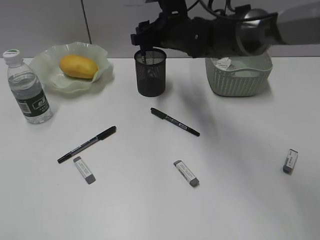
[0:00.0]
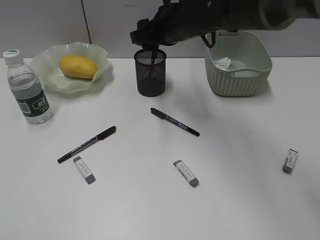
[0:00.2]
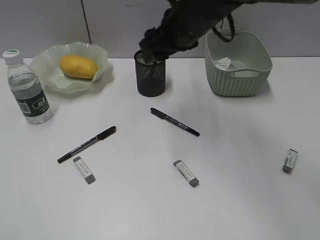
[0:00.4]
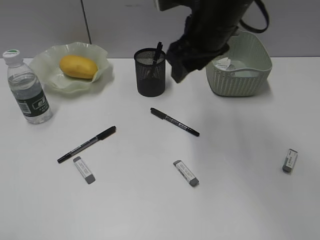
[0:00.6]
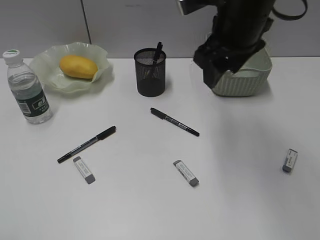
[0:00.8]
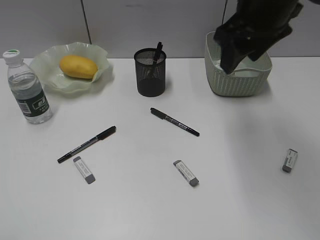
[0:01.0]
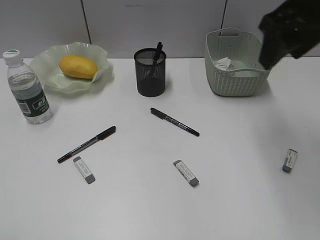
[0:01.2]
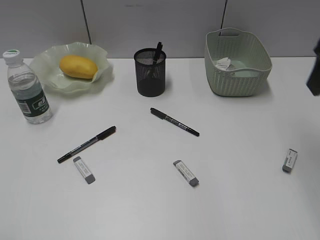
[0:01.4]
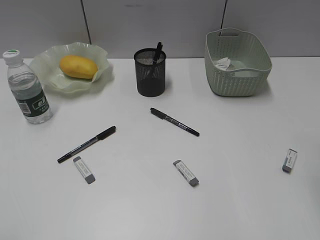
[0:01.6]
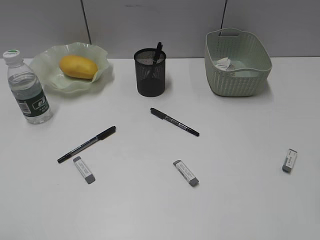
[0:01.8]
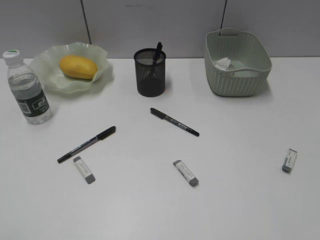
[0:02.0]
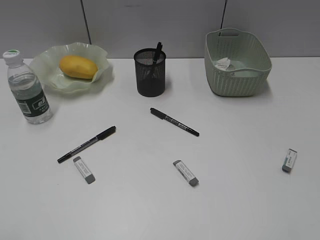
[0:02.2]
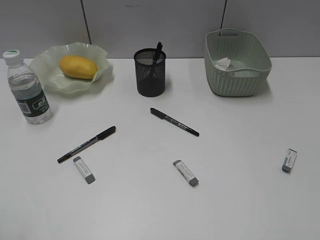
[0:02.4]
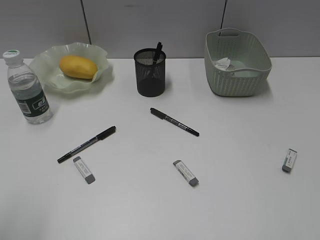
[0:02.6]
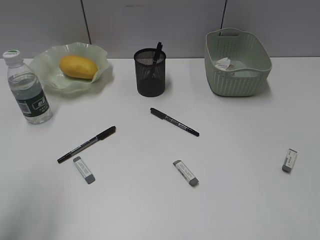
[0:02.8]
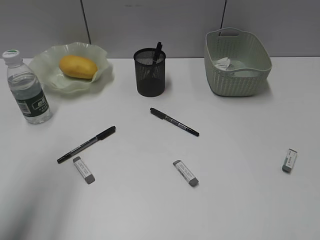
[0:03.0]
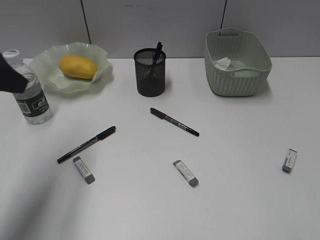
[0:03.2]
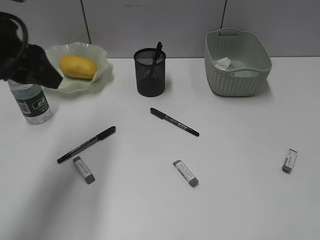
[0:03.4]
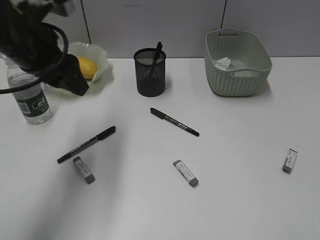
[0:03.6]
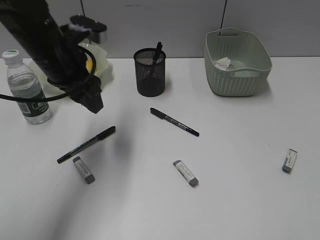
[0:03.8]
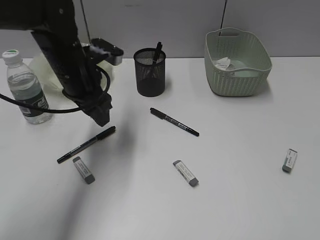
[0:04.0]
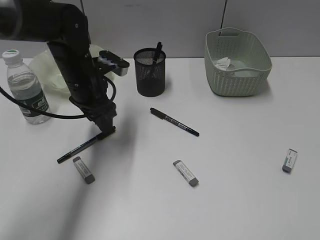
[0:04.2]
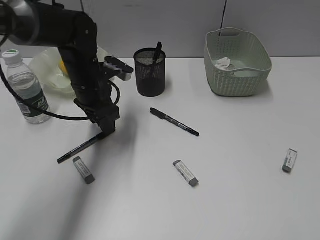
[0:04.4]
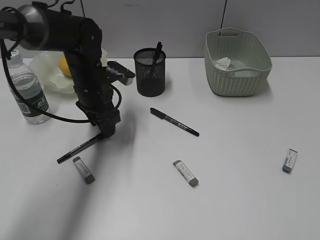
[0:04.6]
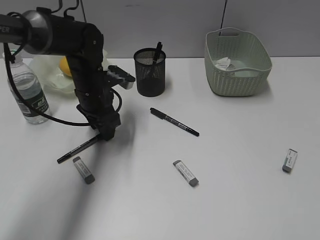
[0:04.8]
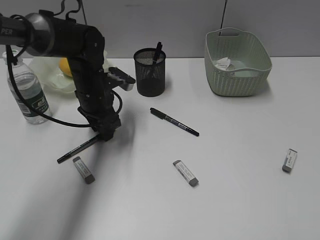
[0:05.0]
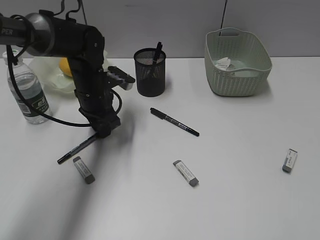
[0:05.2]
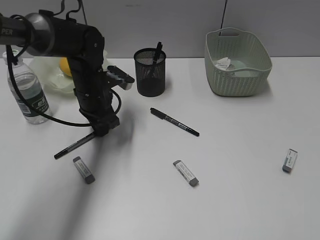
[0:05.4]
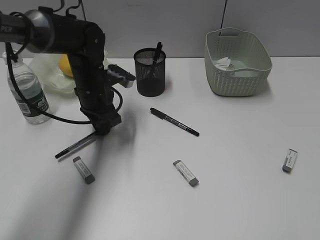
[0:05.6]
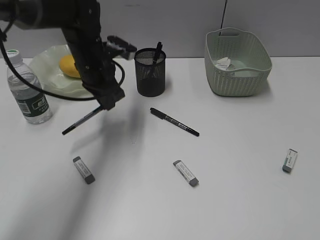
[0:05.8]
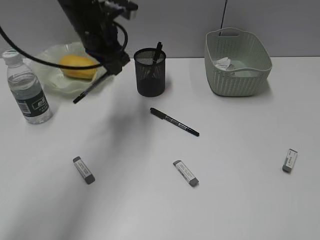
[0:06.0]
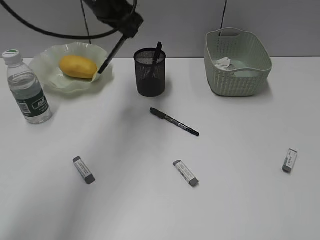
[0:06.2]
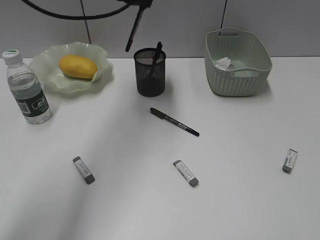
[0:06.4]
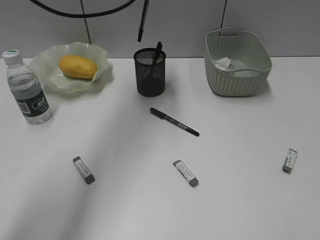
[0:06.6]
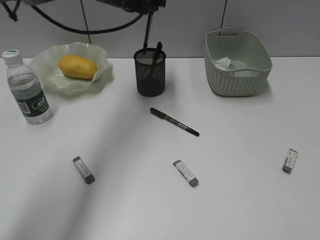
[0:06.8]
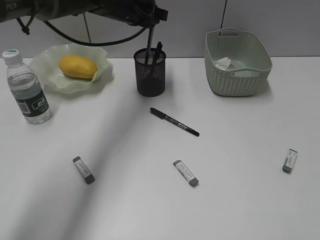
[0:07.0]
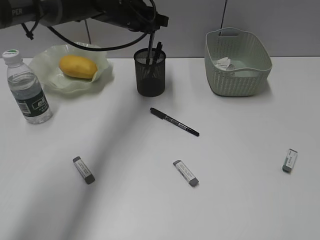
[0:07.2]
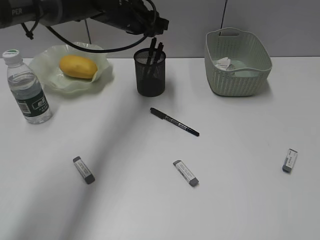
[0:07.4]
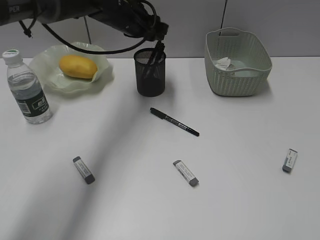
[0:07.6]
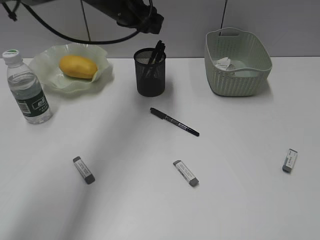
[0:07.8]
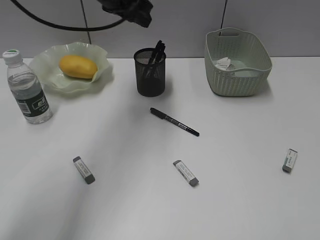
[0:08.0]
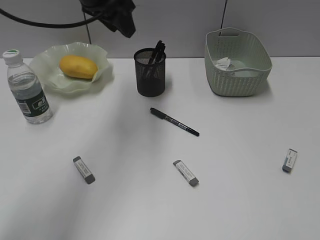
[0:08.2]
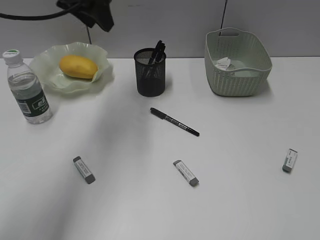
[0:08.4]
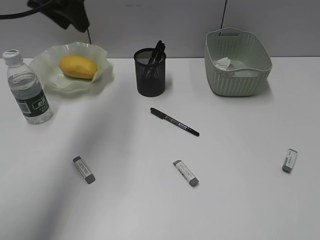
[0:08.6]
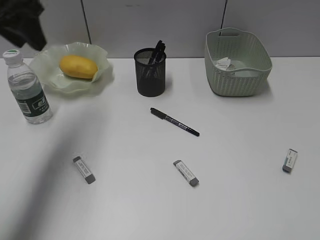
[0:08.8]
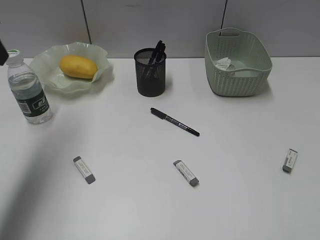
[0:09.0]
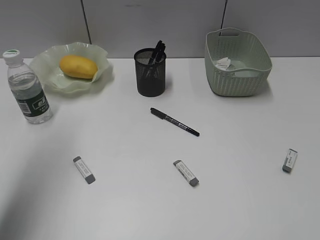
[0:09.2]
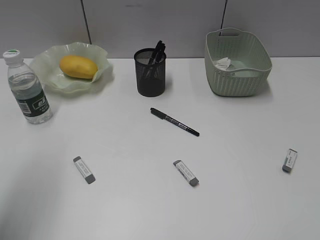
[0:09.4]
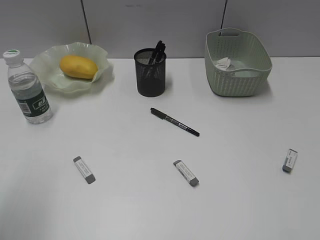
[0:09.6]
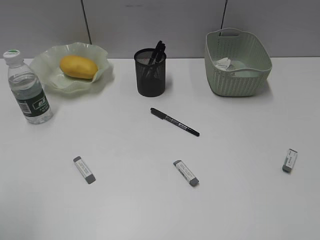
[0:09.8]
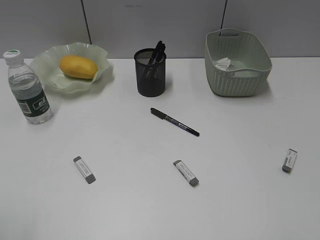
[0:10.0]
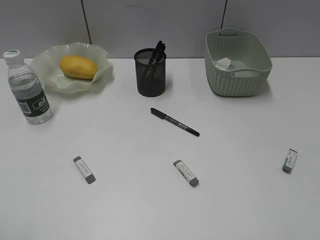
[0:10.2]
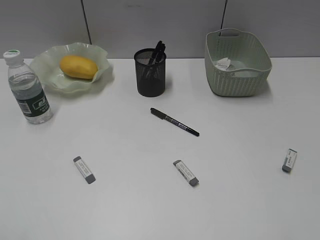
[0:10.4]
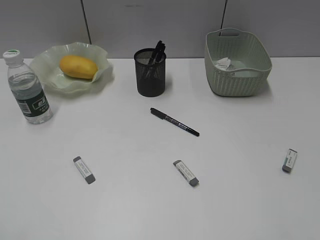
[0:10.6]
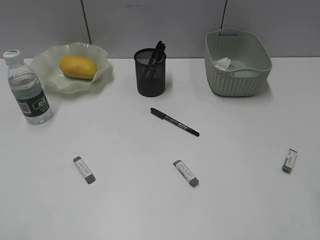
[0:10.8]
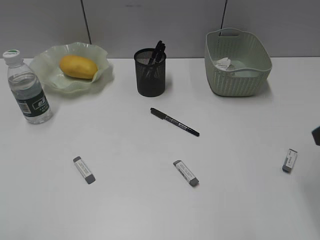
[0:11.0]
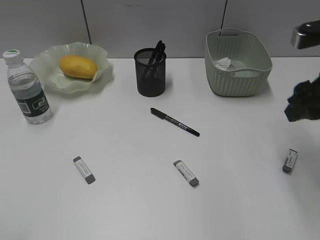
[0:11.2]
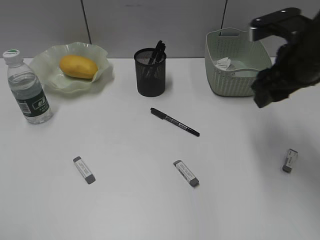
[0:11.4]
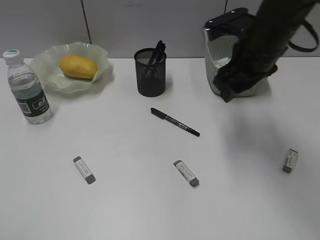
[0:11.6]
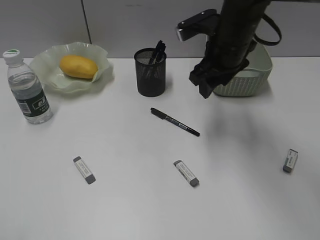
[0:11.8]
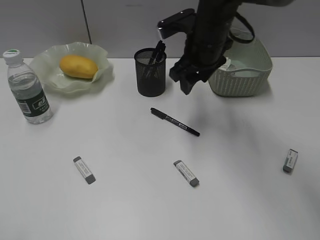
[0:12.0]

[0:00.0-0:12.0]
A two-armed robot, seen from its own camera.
Step, 0:00.4 to 0:05.4: Grasp the black pen with left gripper.
Step, 0:05.6 to 0:07.8: Place the black pen in pen holder with left gripper.
0:00.0 to 0:01.6: The right gripper is displaced backward, to the right and upward by about 35 cm.
0:01.6 to 0:03.0: The left gripper travels forward by approximately 20 cm.
0:03.0 to 0:04.4: The left gripper travels forward, downward and to the right by roughly 30 cm.
0:04.4 to 0:06.0: The left gripper moves upward, approximately 10 cm, and closes its fingers.
0:06.0 to 0:07.6: The left gripper shifts some 5 cm forward, goes upward and returns, some 10 cm each way, and opens.
0:07.6 to 0:09.0: The left gripper goes some 30 cm to the left, backward and upward.
0:09.0 to 0:10.4: The left gripper moves backward, some 30 cm.
0:10.4 to 0:12.0: The right gripper moves forward and to the left, roughly 40 cm.

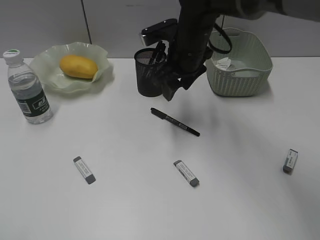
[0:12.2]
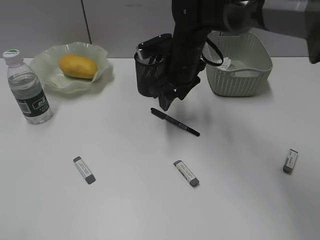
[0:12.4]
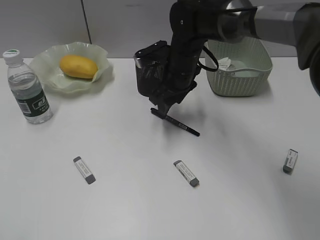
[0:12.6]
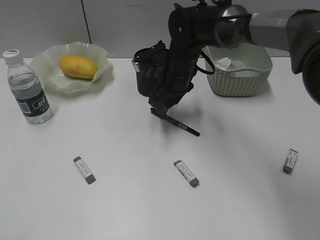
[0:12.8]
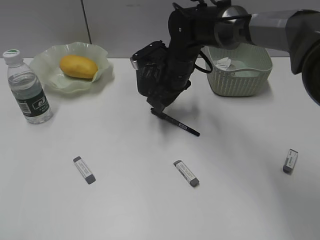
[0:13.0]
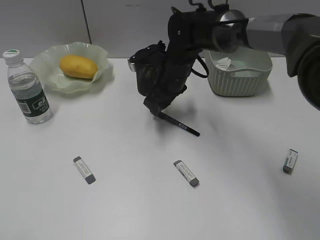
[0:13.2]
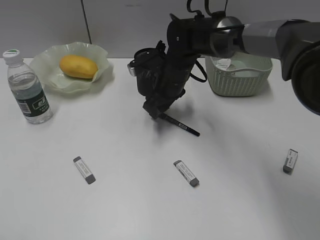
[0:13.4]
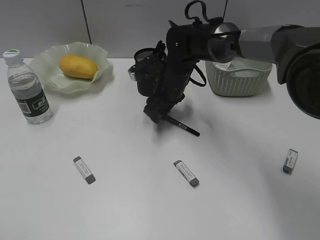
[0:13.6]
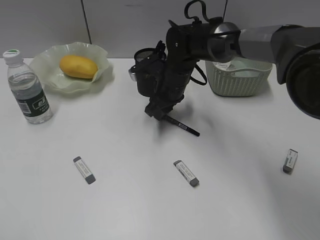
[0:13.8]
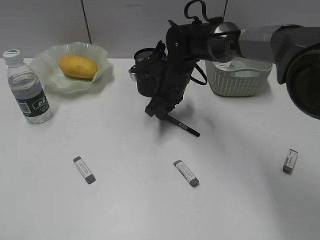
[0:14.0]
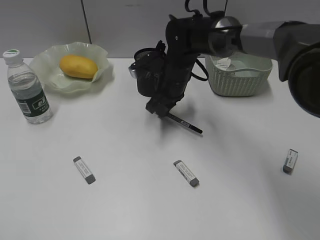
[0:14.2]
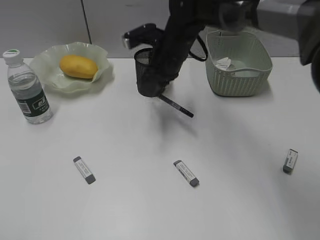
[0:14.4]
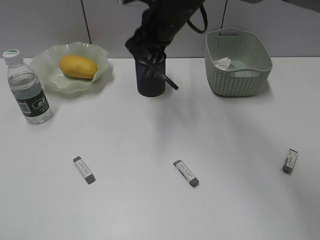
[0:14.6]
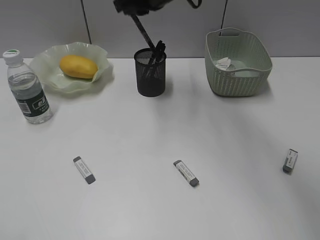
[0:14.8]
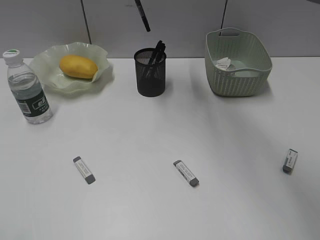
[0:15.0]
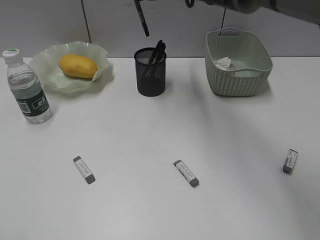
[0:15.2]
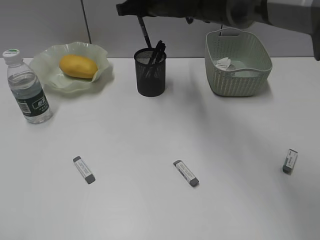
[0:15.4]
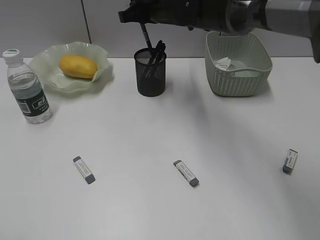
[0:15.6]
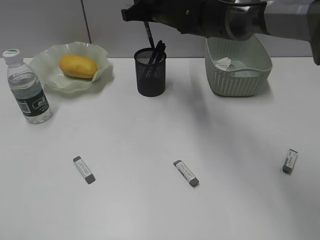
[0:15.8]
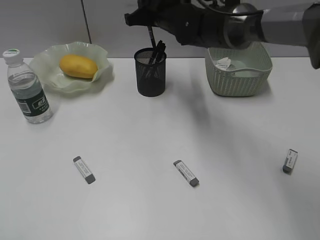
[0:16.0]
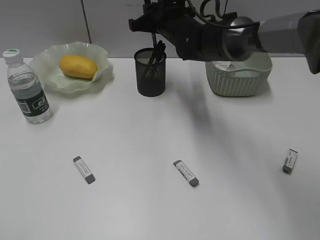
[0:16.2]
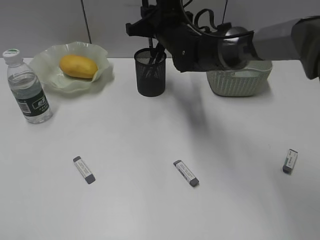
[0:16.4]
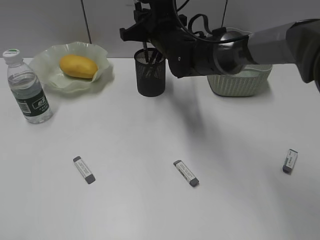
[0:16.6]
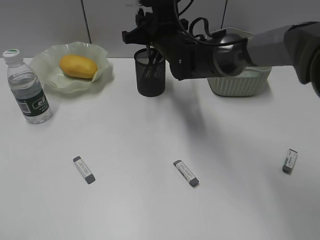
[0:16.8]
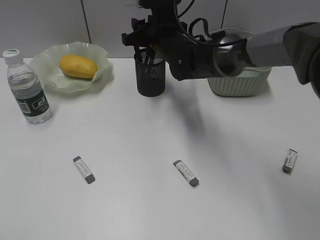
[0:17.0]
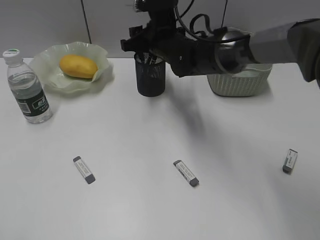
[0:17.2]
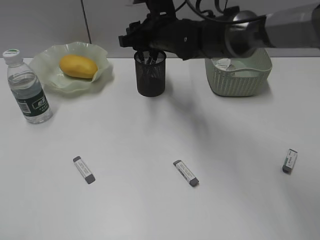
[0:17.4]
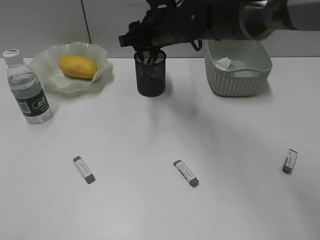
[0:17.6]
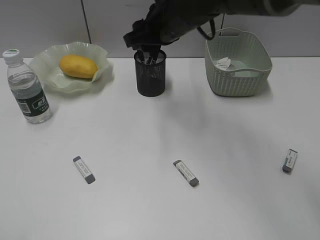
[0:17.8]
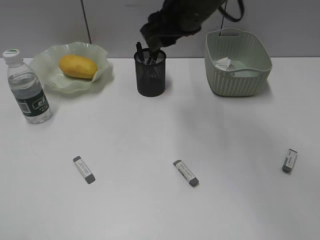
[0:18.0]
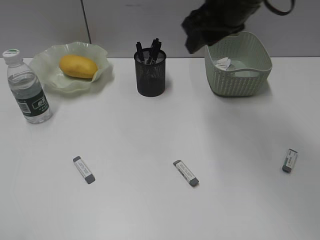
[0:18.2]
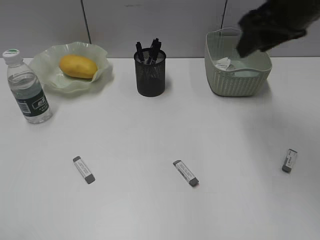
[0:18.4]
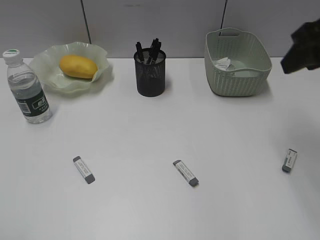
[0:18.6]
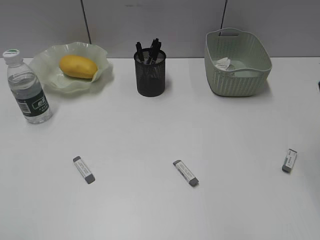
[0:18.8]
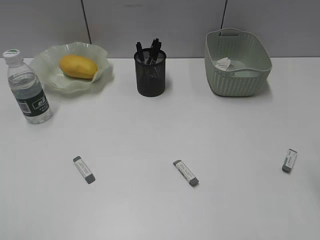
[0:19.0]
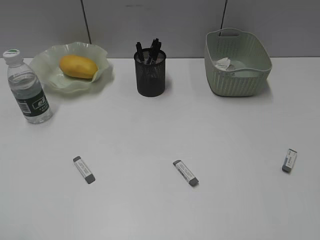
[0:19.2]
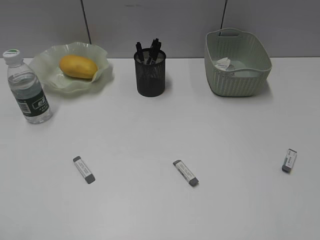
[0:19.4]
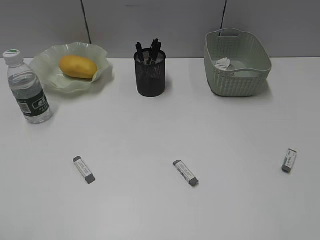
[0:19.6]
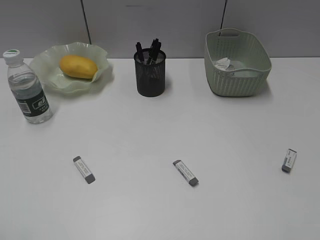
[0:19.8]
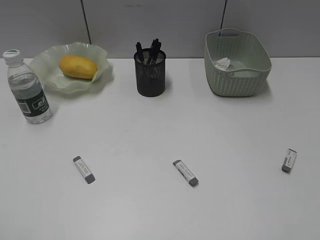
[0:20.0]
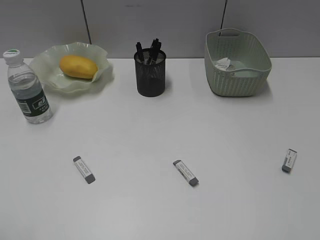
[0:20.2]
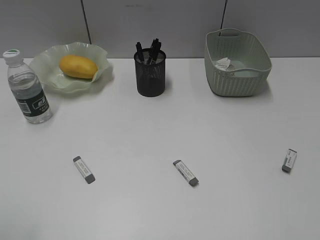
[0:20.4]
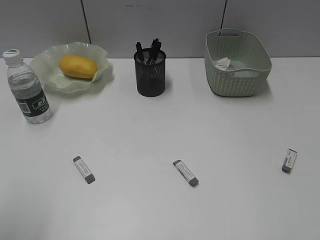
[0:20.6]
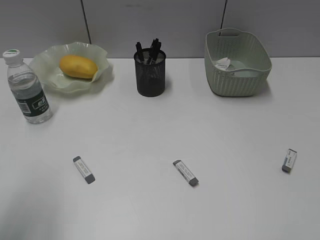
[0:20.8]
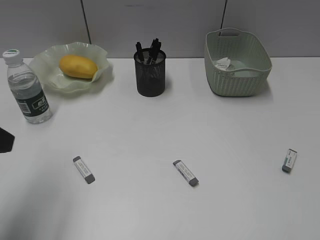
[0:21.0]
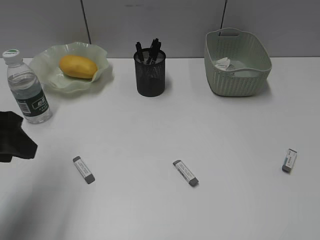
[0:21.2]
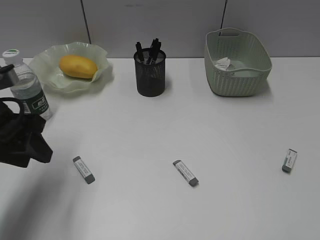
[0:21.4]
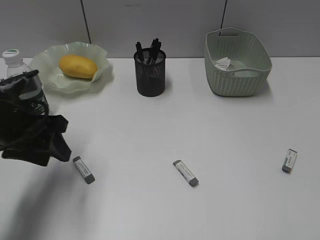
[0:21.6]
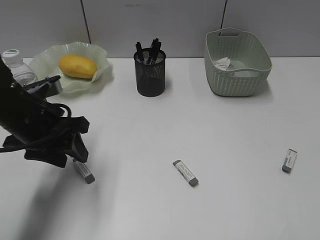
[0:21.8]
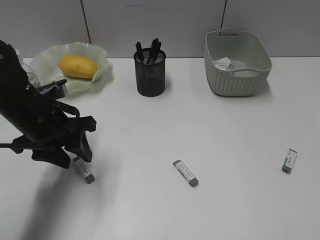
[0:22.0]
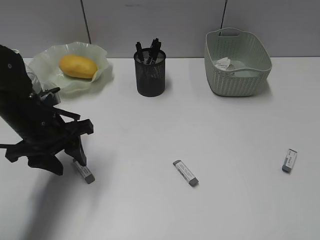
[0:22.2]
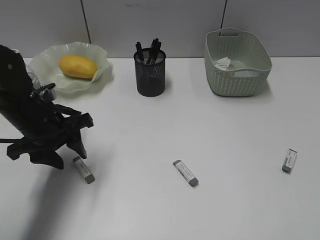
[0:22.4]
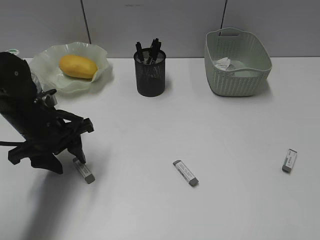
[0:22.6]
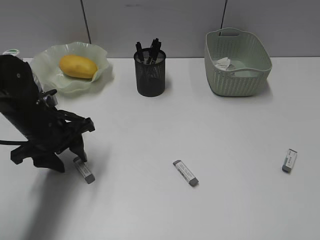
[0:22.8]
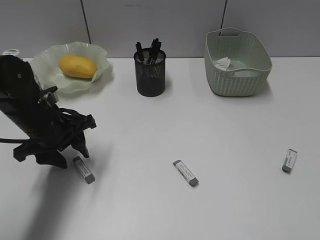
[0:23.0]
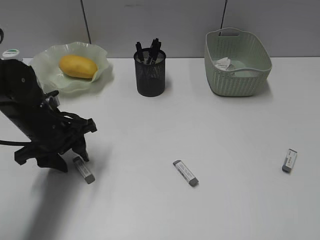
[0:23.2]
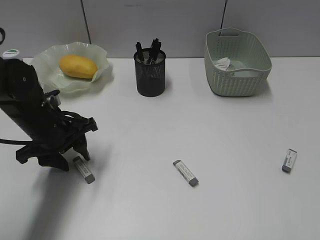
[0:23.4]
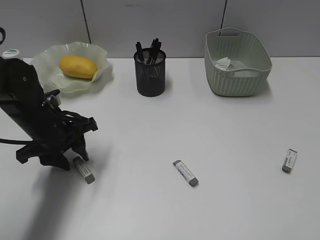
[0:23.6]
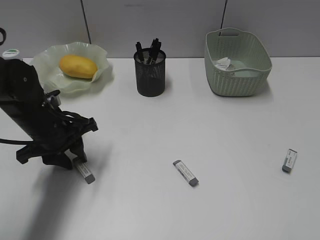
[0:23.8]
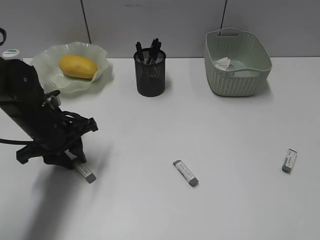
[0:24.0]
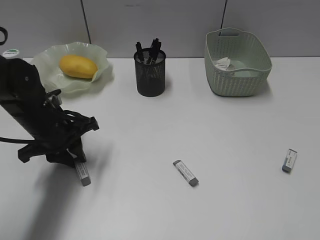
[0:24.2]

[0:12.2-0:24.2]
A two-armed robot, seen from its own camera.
Step, 0:14.2 to 0:18.0: Place the black pen in pen holder with right gripper.
Step, 0:18.2 to 0:24.2: Grasp the eraser with left gripper.
0:12.2 to 0:13.8: The right gripper shifts some 10 cm downward, and closes its fingers.
0:13.8 to 0:15.2: The right gripper is displaced upward by roughly 15 cm, and closes up.
0:15.2 to 0:16.6: The right gripper shifts approximately 10 cm downward.
0:16.6 to 0:18.2: The right gripper moves upward, to the right and backward, some 15 cm, and opens.
0:18.2 to 0:19.8: The right gripper is displaced backward and to the right by about 40 cm.
0:19.8 to 0:21.2: The left gripper heads forward, covering some 20 cm.
0:21.2 to 0:22.6: The left gripper heads downward, forward and to the right, covering about 15 cm.
0:22.6 to 0:24.2: The left gripper closes up.
